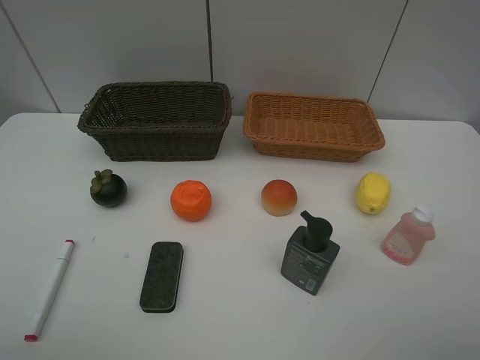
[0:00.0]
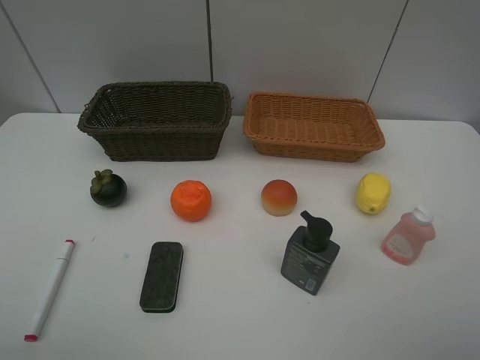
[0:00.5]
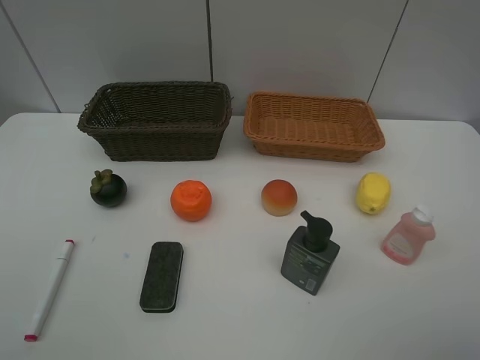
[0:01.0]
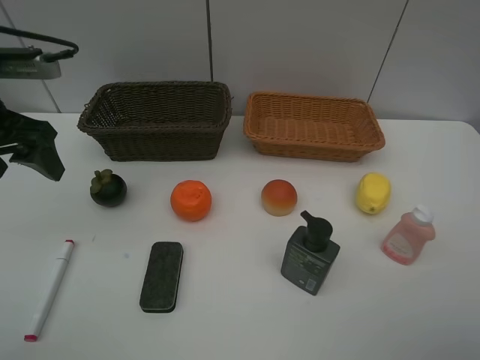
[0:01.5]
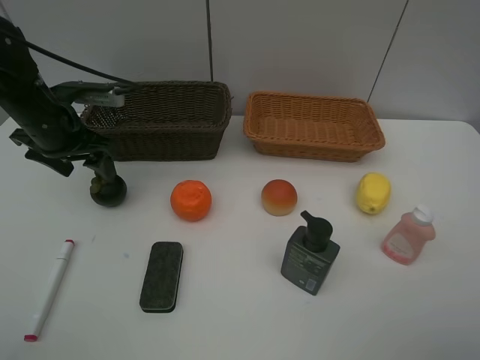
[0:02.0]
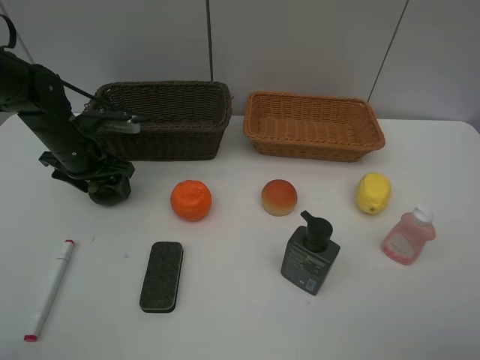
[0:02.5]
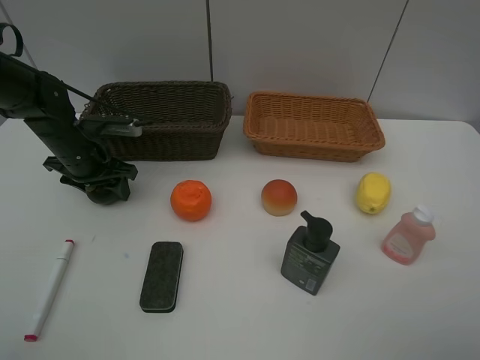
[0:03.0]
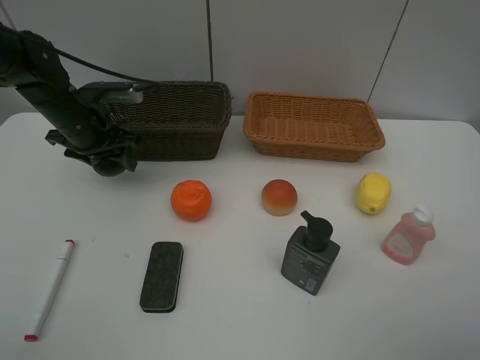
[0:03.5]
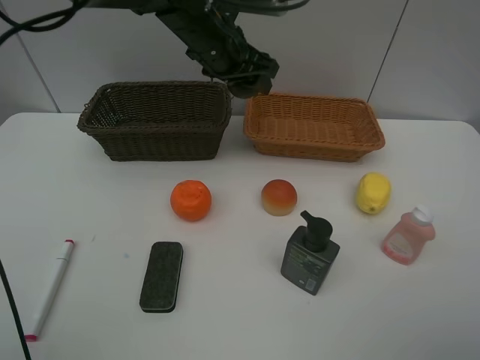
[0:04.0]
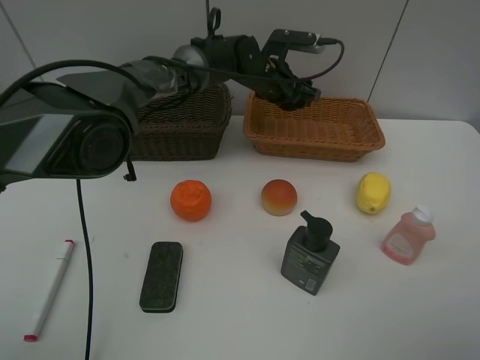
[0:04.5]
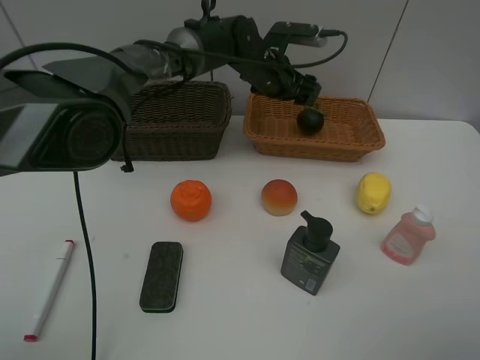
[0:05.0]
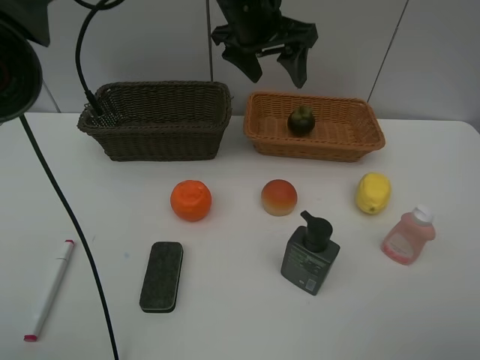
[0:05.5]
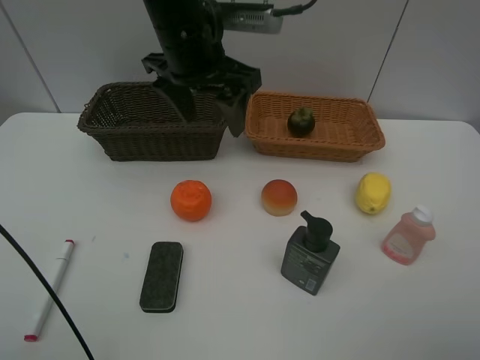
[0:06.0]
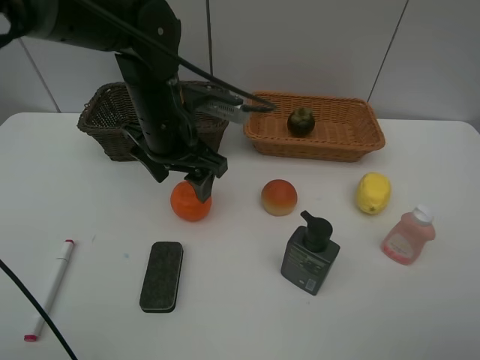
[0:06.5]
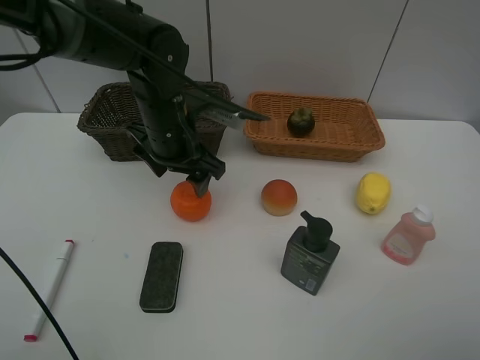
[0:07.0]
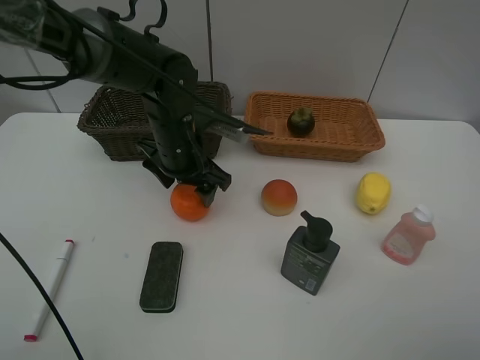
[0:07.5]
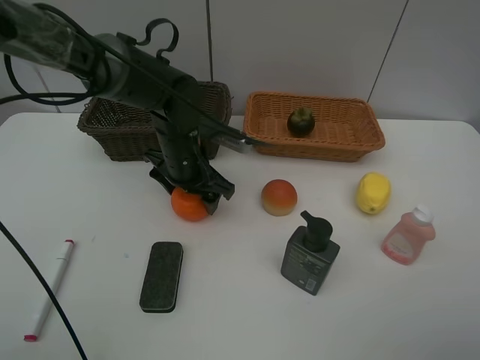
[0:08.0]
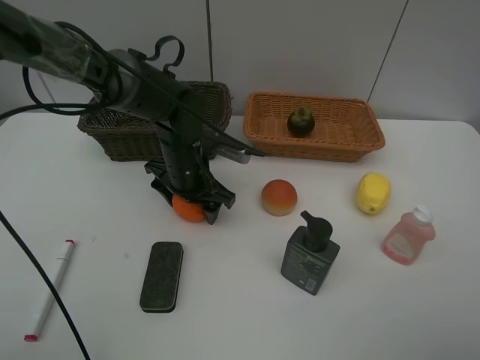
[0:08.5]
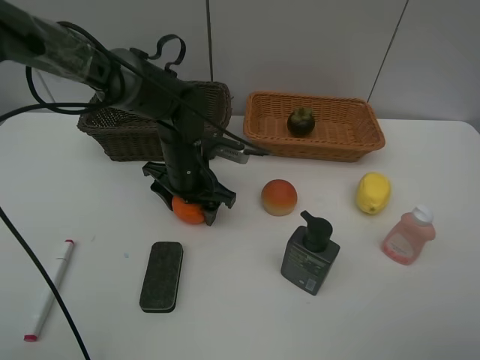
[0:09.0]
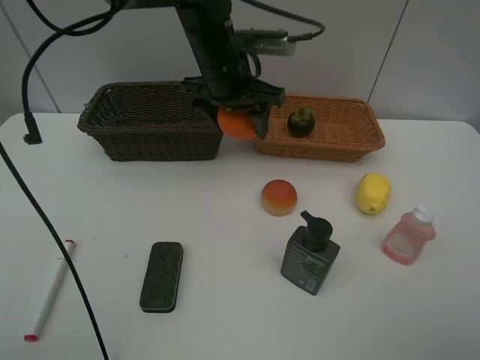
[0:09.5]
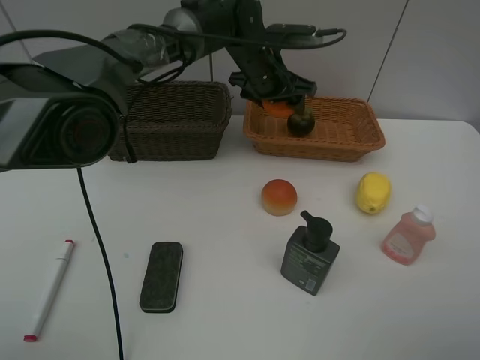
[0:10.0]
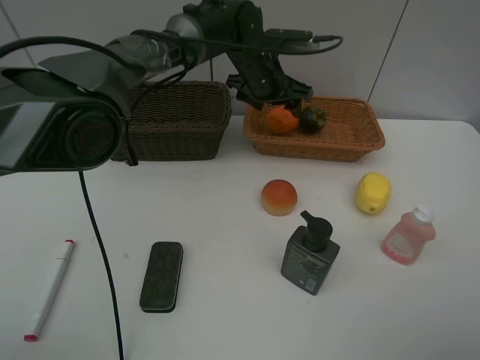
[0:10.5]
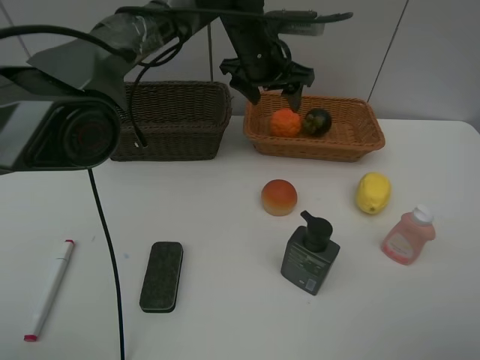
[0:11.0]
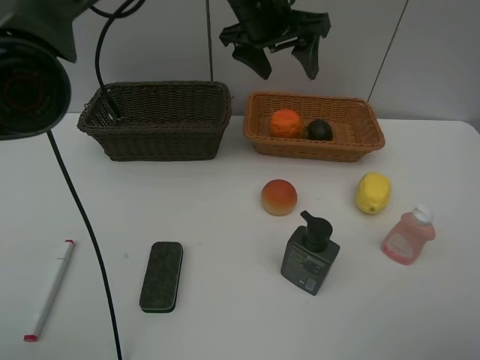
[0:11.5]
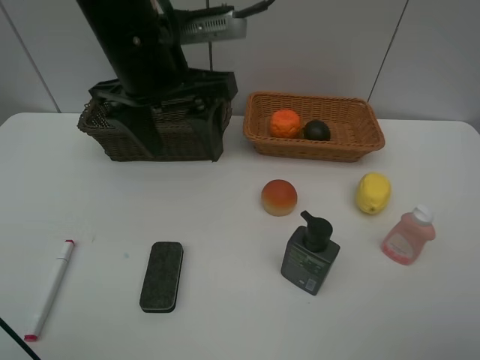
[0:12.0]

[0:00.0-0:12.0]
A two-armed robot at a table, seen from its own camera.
Task of the whole recording: Place multiple objects separately in different baskets.
Step, 0:00.0 to 0:03.0: Pick up the mangosteen with left gripper.
Step, 0:03.5 to 0:05.0: Place the mangosteen in the light basket with left gripper.
Step, 0:05.5 to 0:09.0: Pick up the orange with left gripper.
Step, 0:09.5 to 0:10.5: Place the orange in the light basket with left gripper.
0:00.0 to 0:02.0: The left gripper heads forward, covering roughly 35 cm.
0:02.0 to 0:04.0: The left gripper moves to the right, approximately 25 cm.
0:04.0 to 0:06.0: The left gripper shifts approximately 10 cm backward.
0:06.0 to 0:08.0: The left gripper shifts approximately 15 cm downward.
0:08.0 to 0:10.0: The left gripper shifts roughly 20 cm forward, to the right and upward.
0:10.0 to 0:12.0: The left gripper heads backward, to the left and upward, covering approximately 25 cm.

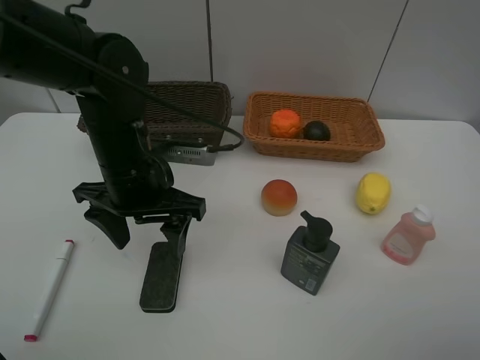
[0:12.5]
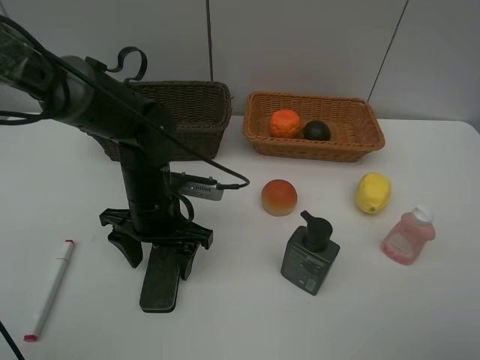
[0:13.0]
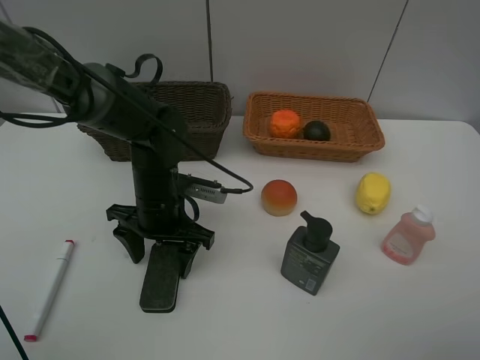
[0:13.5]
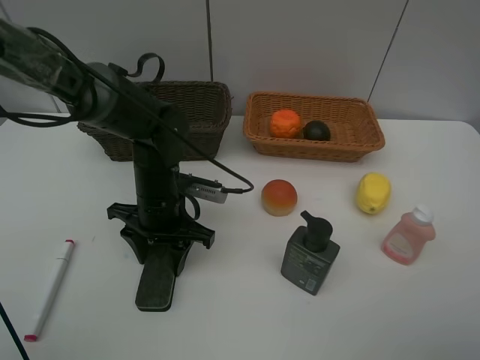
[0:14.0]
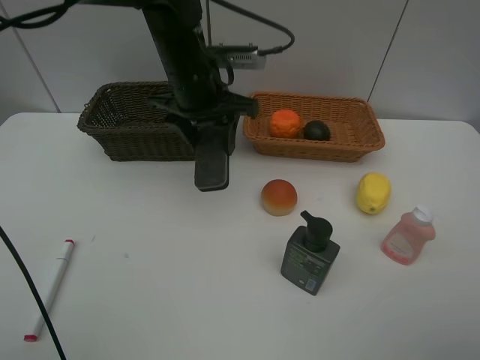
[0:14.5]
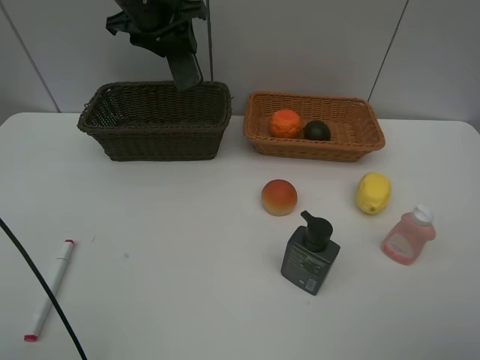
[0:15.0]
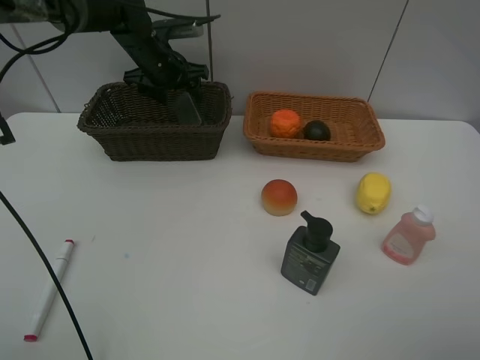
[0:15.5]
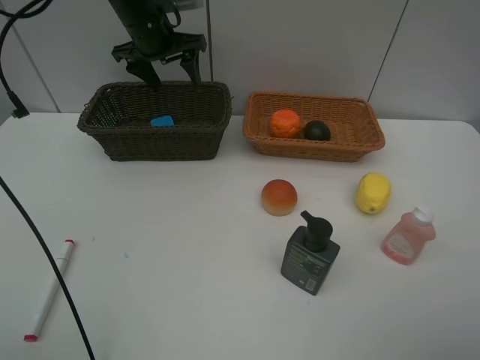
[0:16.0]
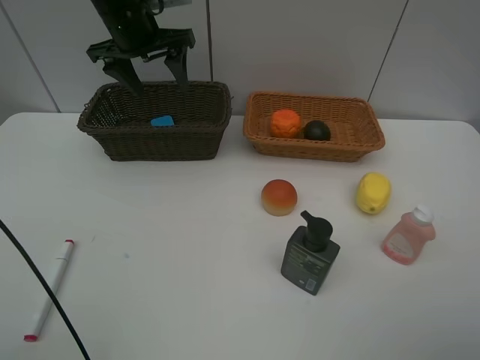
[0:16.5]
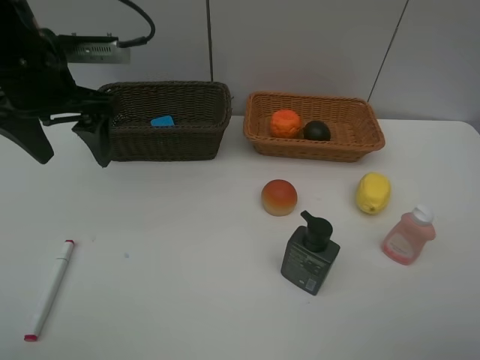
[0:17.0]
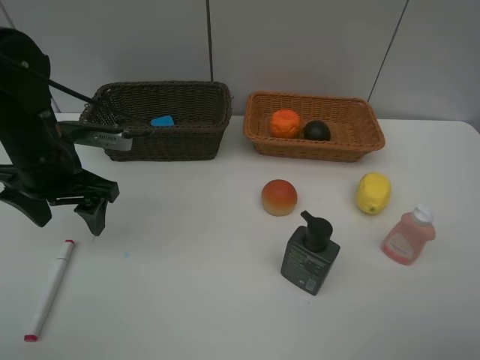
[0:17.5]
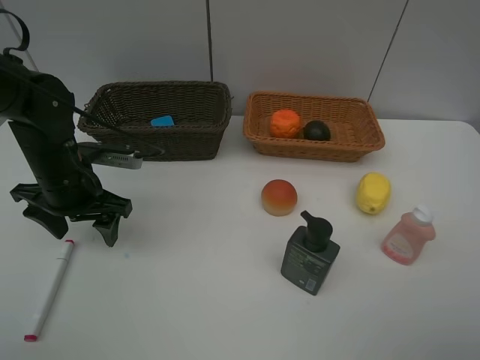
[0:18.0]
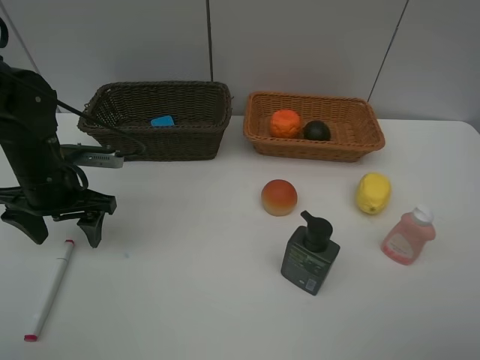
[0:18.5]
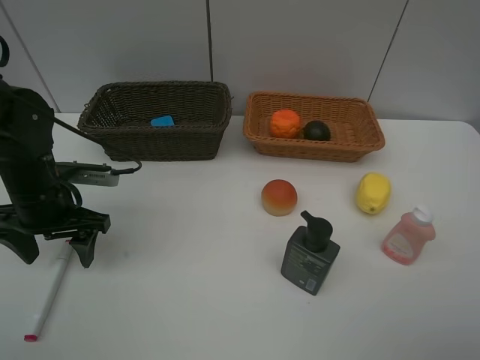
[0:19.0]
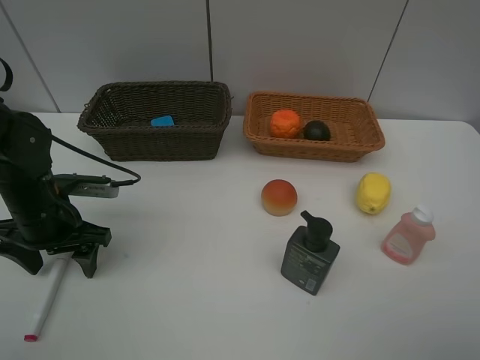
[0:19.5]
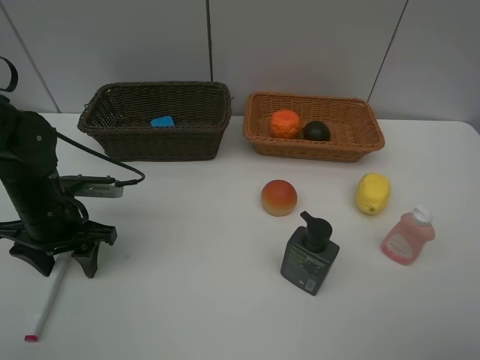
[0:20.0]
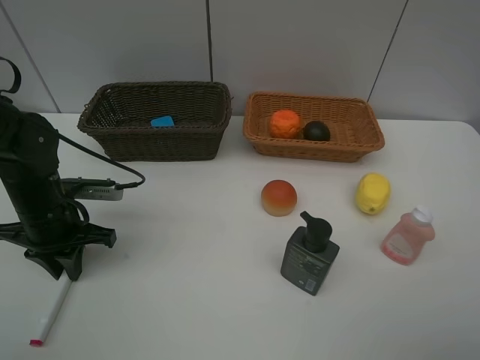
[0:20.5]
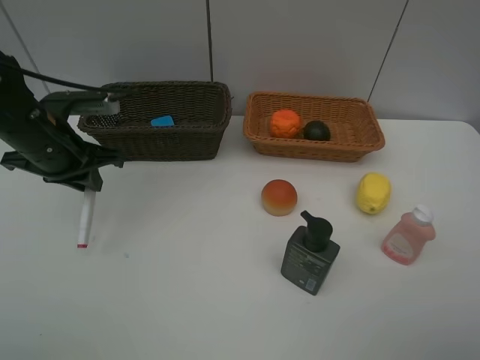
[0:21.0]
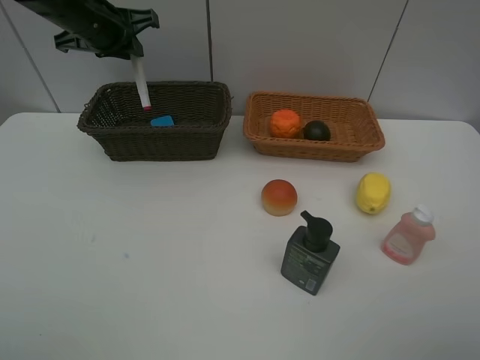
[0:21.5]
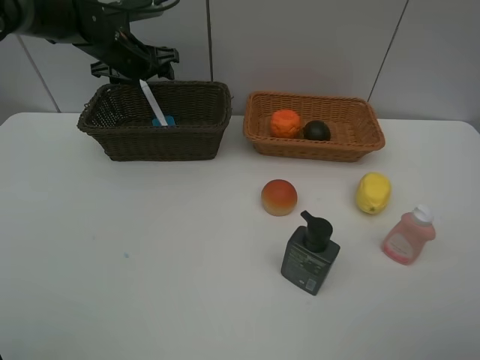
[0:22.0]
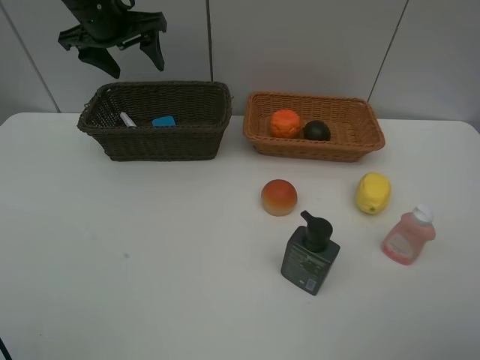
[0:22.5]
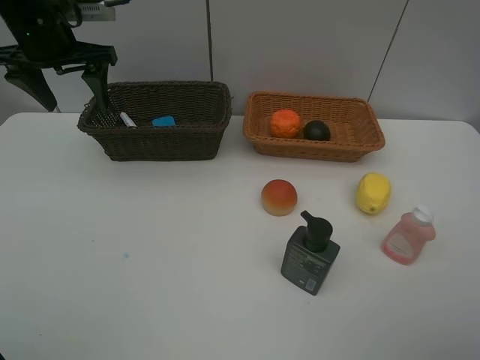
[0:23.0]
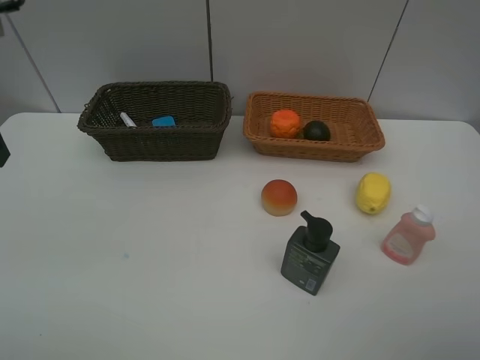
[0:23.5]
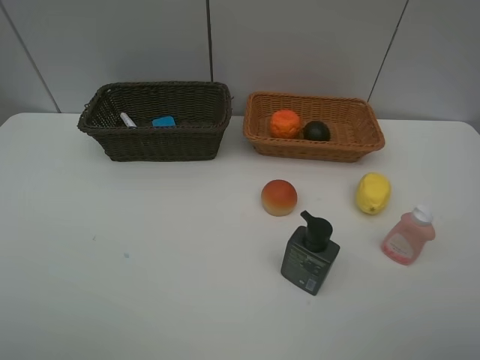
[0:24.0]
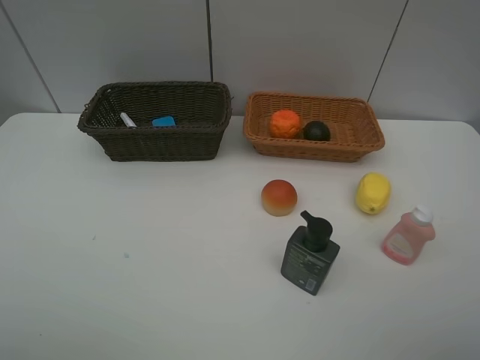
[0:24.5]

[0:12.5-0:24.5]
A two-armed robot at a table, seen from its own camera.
Task of the whole recording: Place multiple objects separately in different baskets.
Step, 0:14.5 to 0:16.0: Place the blackboard eraser in the dark basket with left gripper.
Step, 0:16.5 to 0:20.5: Pick up the red marker with left gripper.
Step, 0:21.0 to 0:22.0: Place the red marker in the dark basket with left gripper.
0:12.5 to 0:14.5: The left gripper heads forward and to the right, covering approximately 15 cm, and reaches roughly 10 cm downward, then returns.
0:14.5 to 0:16.5: The left gripper heads to the left, forward and upward, covering approximately 15 cm.
0:16.5 to 0:18.5: The left gripper travels backward, downward and to the left by roughly 25 cm.
0:18.5 to 0:20.5: The left gripper shifts by some 5 cm, and closes its fingers.
0:20.5 to 0:22.5: The left gripper shifts roughly 30 cm forward and upward, and opens.
0:22.5 to 0:24.5: The left gripper goes some 50 cm backward.

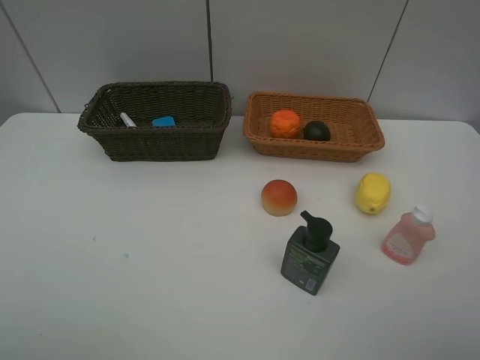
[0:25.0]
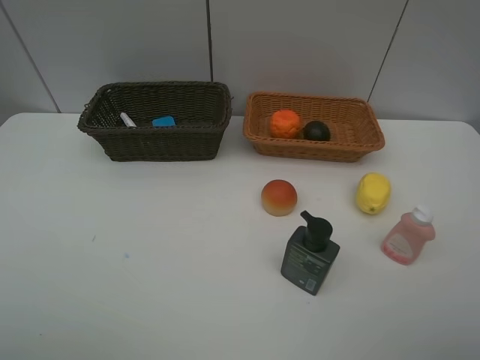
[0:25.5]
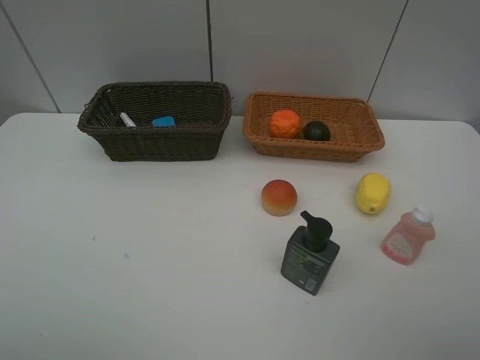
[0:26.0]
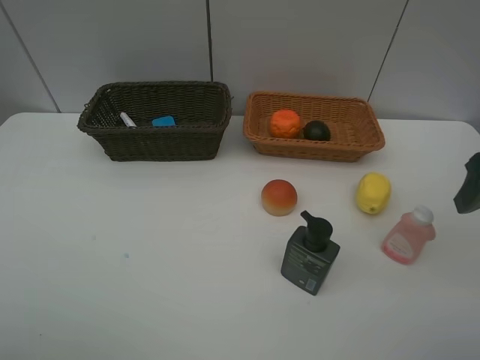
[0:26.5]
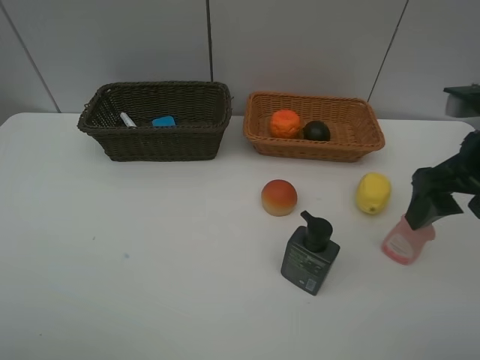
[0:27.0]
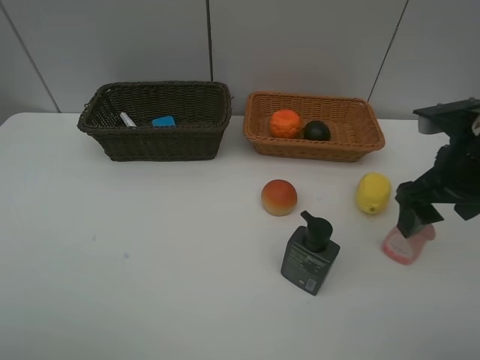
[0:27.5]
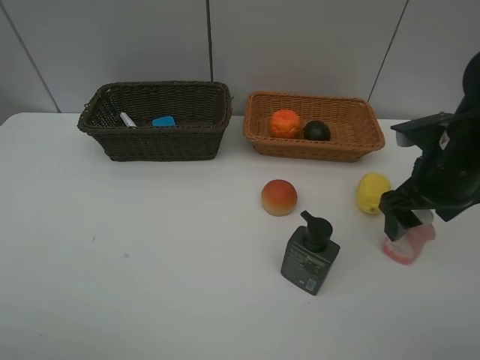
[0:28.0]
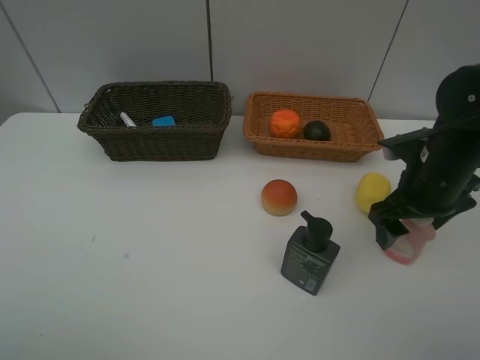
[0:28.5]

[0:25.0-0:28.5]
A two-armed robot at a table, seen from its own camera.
Task of the whole recording: Place multiple objects separately in different baskets.
0:25.0 to 0:27.0: The right gripper travels forward by roughly 20 cm.
0:27.0 to 0:28.5: The right gripper shifts roughly 10 cm downward and forward.
